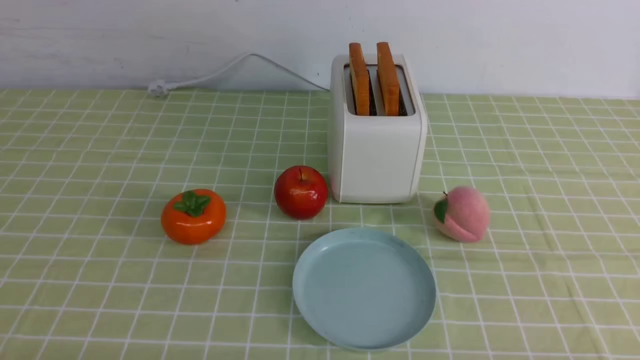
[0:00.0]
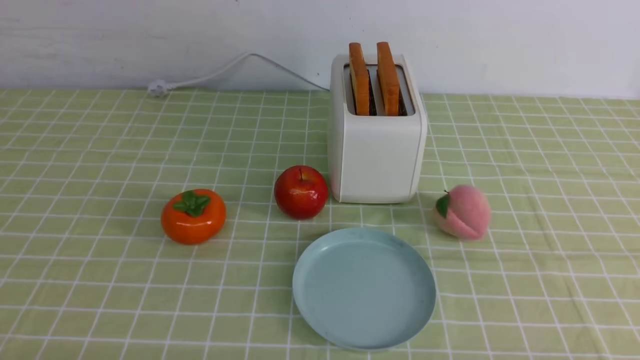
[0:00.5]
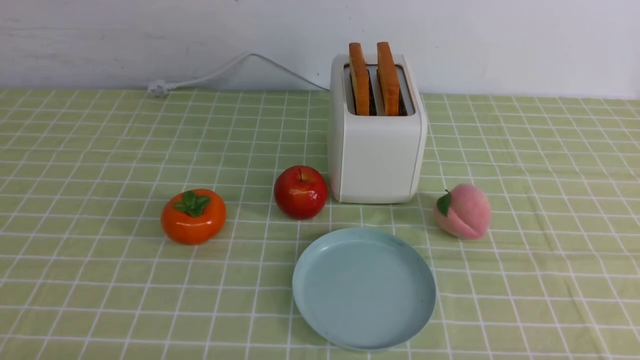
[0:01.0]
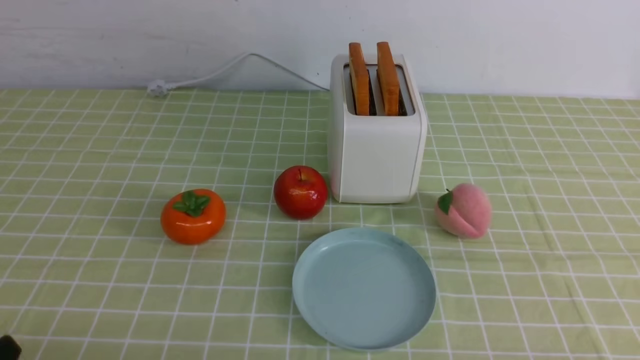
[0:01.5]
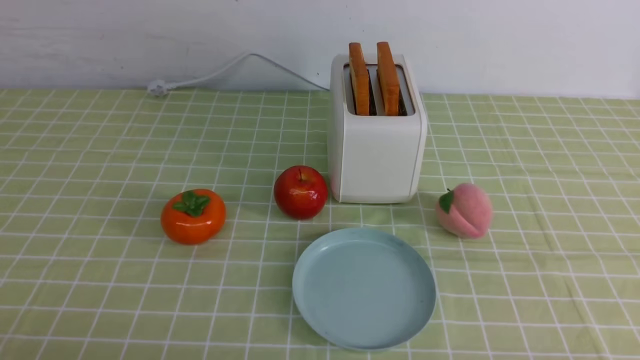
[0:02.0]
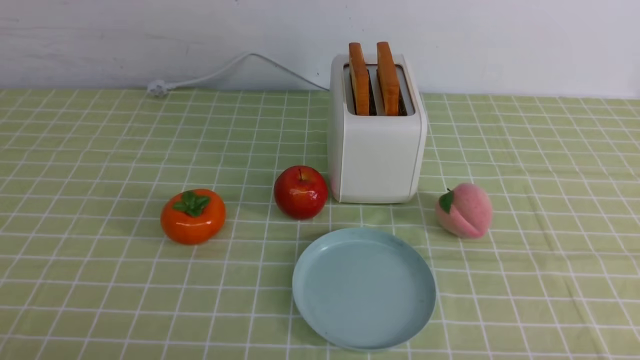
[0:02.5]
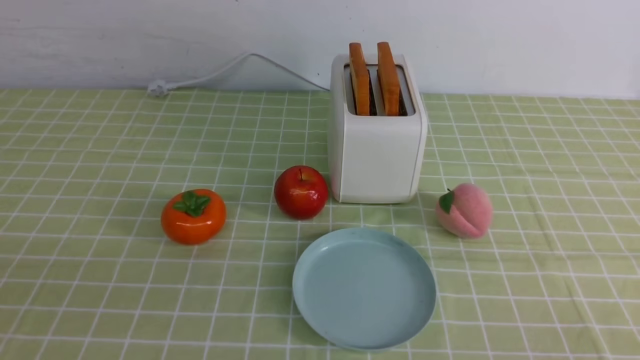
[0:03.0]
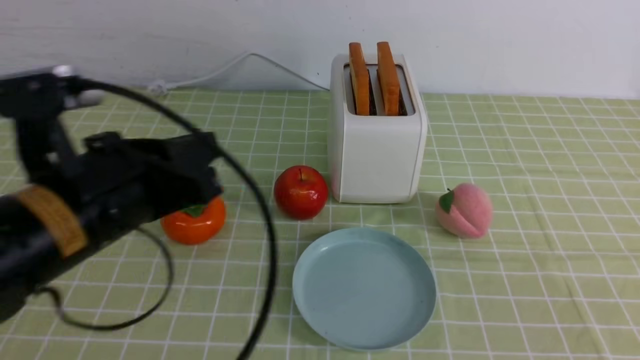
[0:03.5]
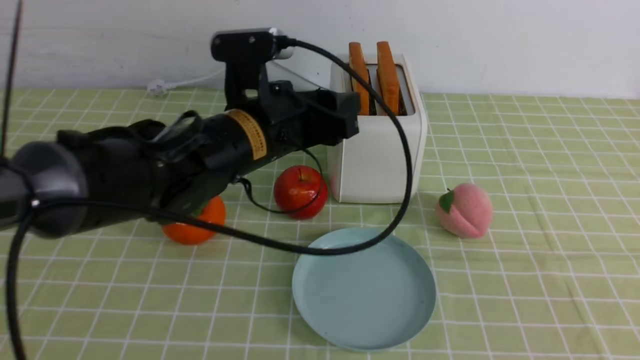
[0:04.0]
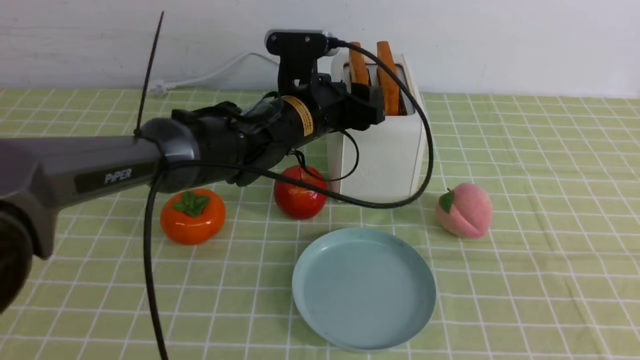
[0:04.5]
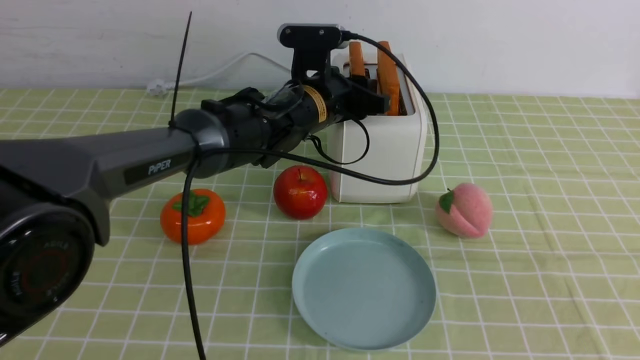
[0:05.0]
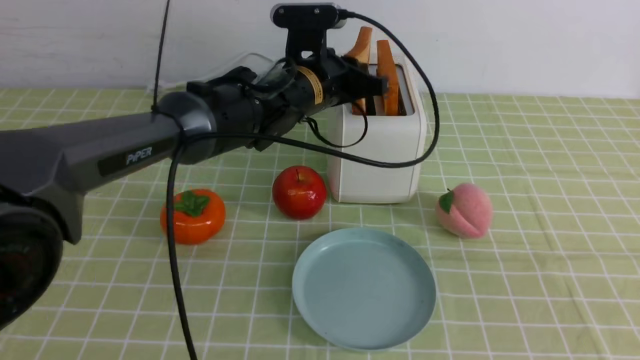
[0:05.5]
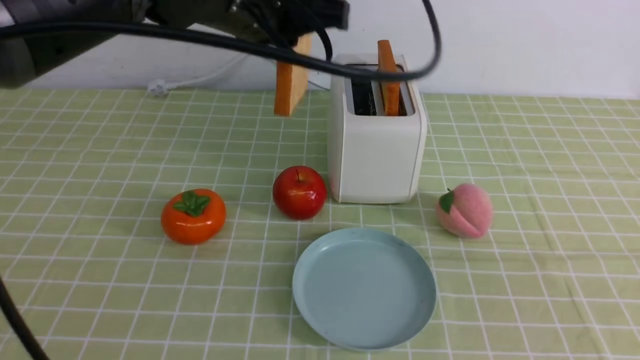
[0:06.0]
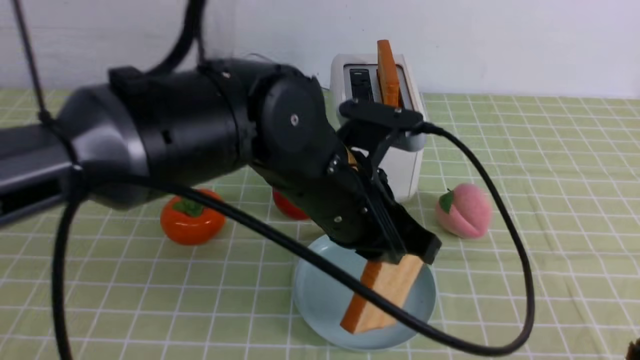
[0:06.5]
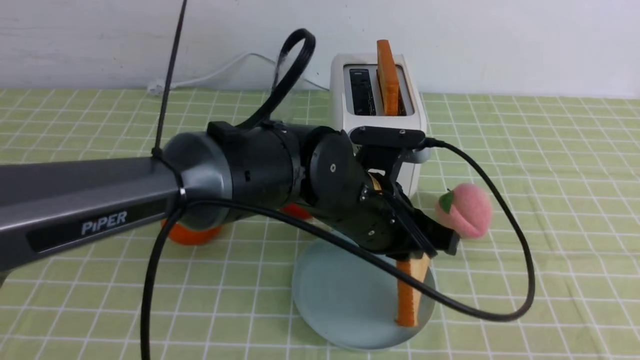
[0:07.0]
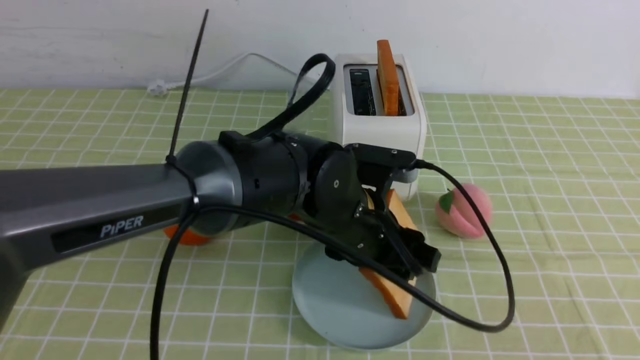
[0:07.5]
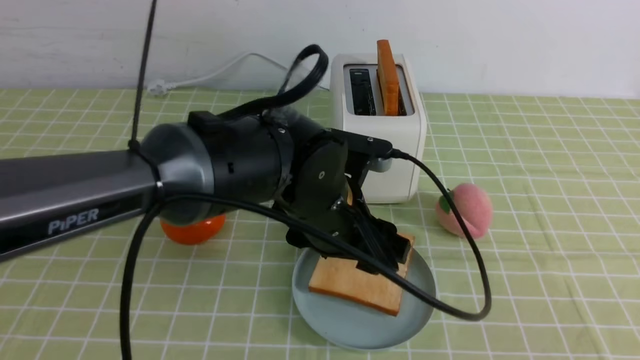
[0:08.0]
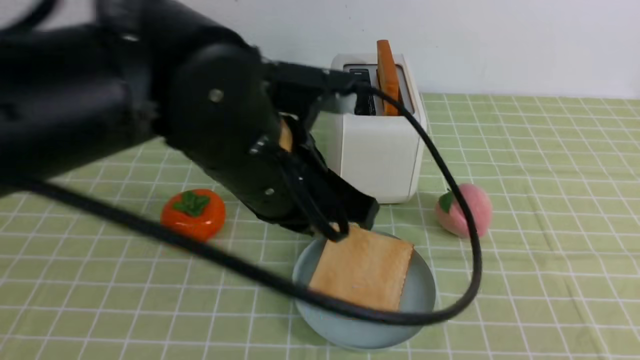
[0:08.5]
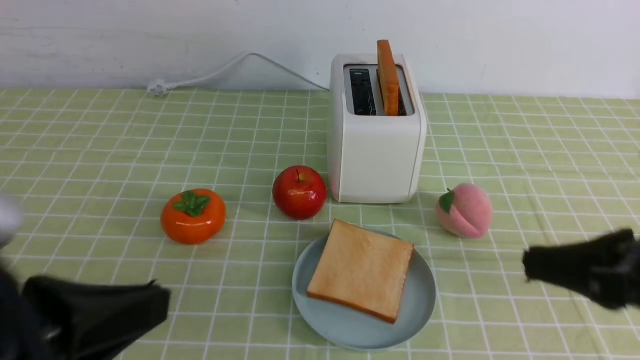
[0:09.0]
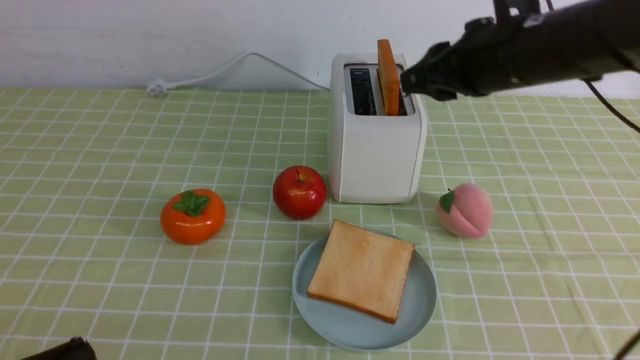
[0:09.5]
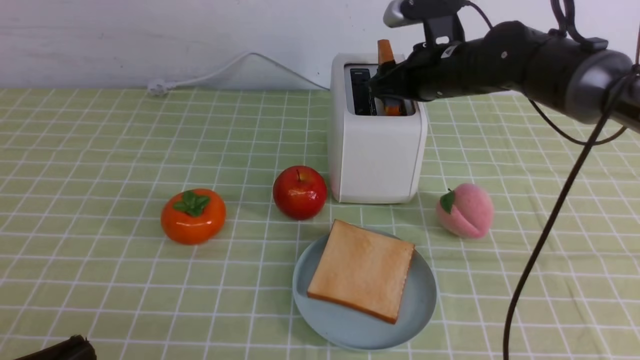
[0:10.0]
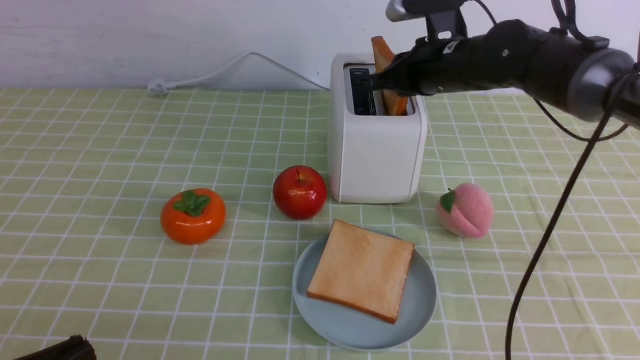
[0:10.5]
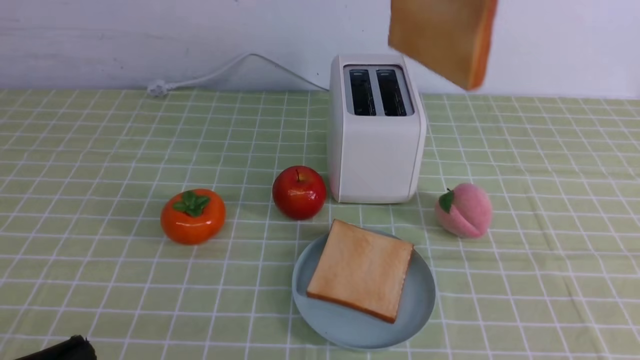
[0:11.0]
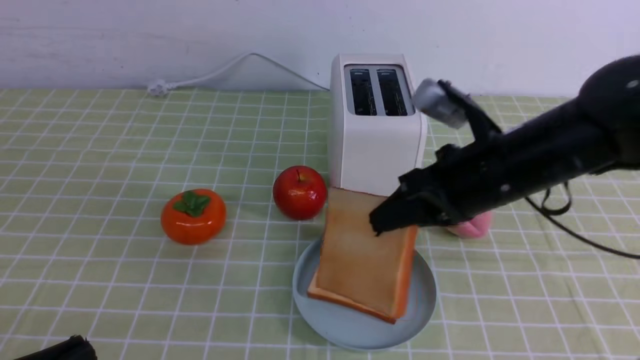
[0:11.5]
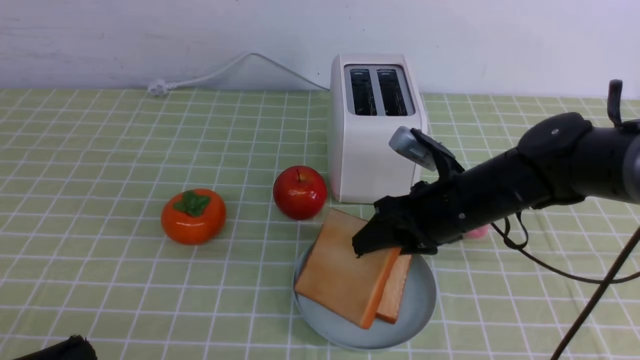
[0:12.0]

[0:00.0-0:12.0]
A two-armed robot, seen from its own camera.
Task of the whole recording: take toasted bread from bread machine on green coffee tablecloth place on plate.
Step, 0:00.0 to 0:05.5: use the left arm to take out a slice of bread.
Step, 0:06.0 to 0:08.0: use the left arm to put a slice of bread into the empty plate.
Step, 0:08.5 to 0:10.5: use the right arm to take out a slice of bread.
0:02.0 to 0:04.0: The left gripper travels forward and to the right by roughly 35 cm, and closes and opens again. Meanwhile the right gripper travels upward by some 15 cm, and closes.
0:04.0 to 0:06.0: The left gripper heads upward, covering roughly 10 cm, and closes its fingers.
0:06.0 to 0:08.0: The left gripper heads downward, covering roughly 15 cm, and opens its fingers. The right gripper shifts roughly 5 cm backward.
0:08.0 to 0:10.0: The right gripper is displaced forward by about 50 cm, and opens its fingers, while the left gripper heads backward and to the left, covering approximately 35 cm, and closes.
0:10.0 to 0:12.0: The right gripper goes approximately 10 cm backward, travels upward and back again, about 15 cm each way, and closes, then reopens.

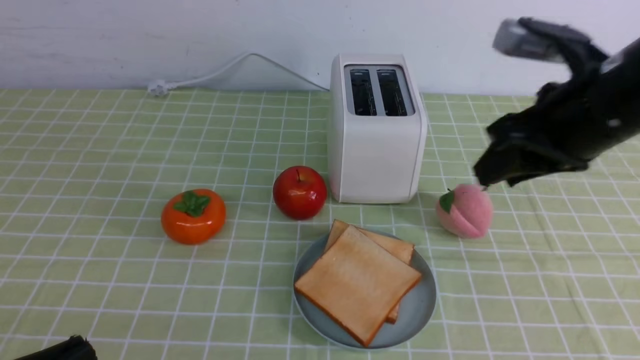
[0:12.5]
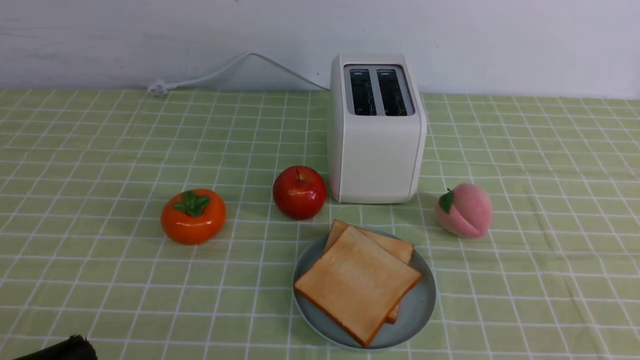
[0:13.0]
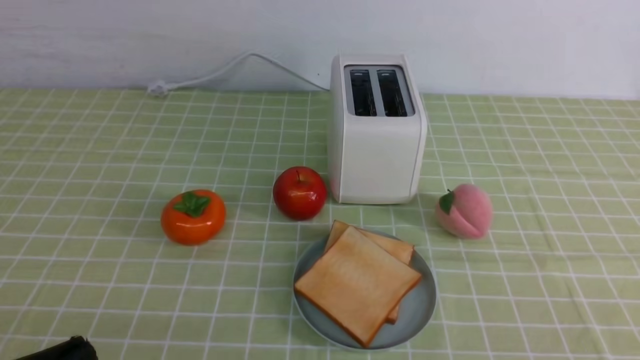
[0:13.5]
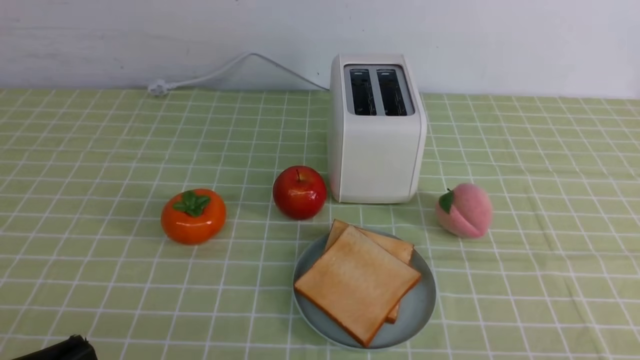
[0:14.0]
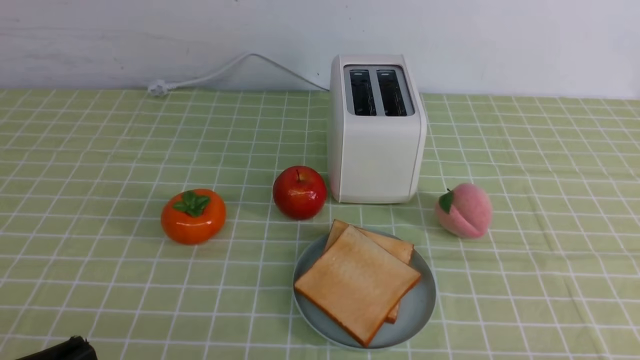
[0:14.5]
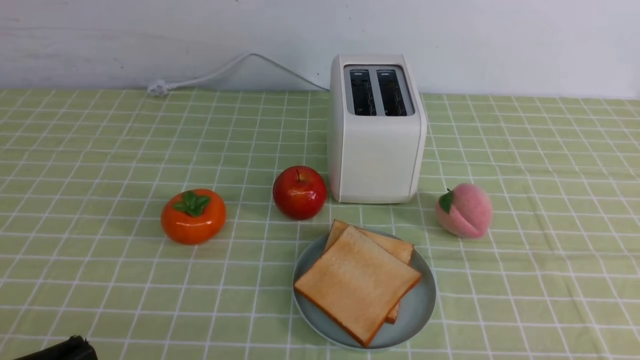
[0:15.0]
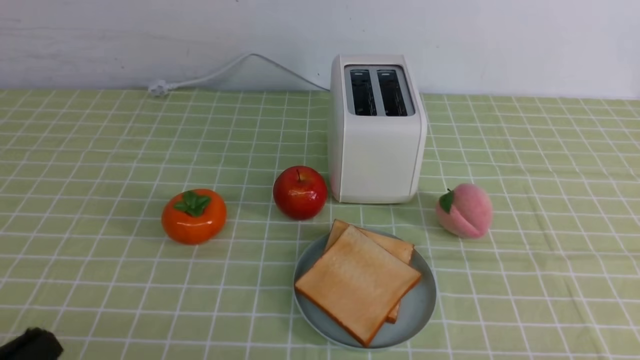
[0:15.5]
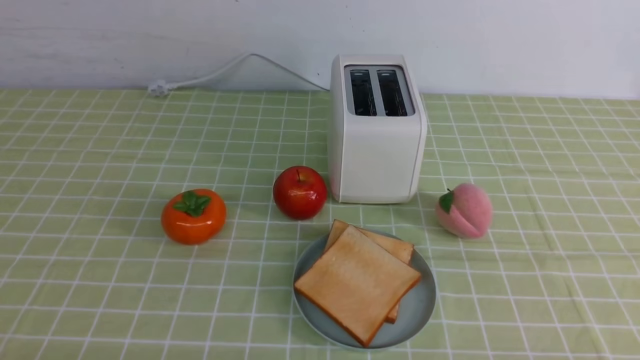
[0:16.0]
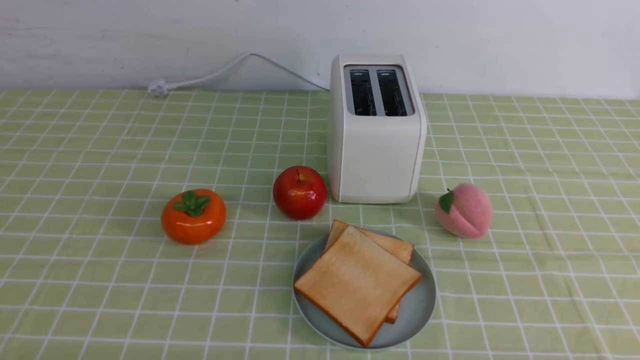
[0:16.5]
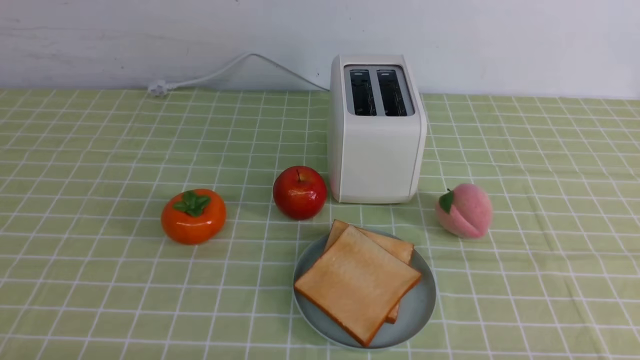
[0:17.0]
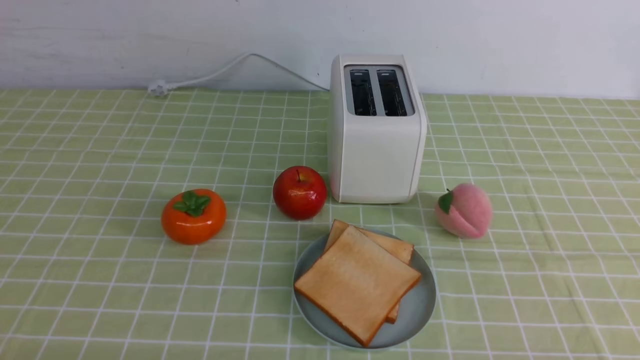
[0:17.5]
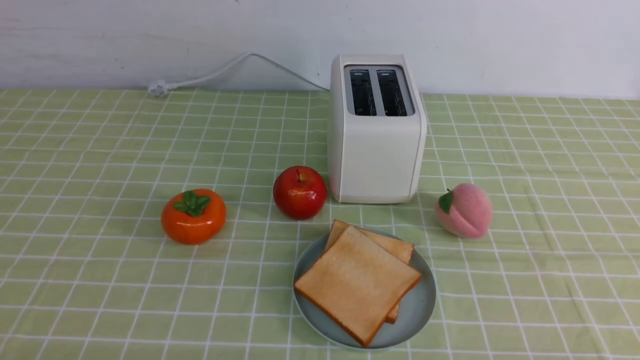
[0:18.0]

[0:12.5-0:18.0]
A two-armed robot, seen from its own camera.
Task of the whole recording: take toasted bread from bread machine on green coffee tablecloth place on plate.
0:12.5 to 0:14.5: The right gripper moves backward, downward and to the right, roughly 30 cm, and closes.
0:16.0 to 0:18.0: The two grippers keep their place.
